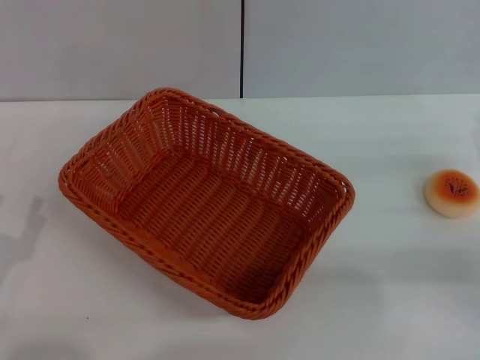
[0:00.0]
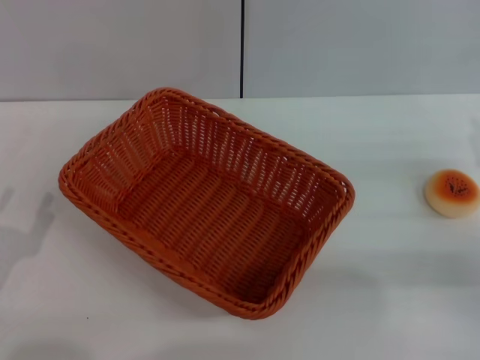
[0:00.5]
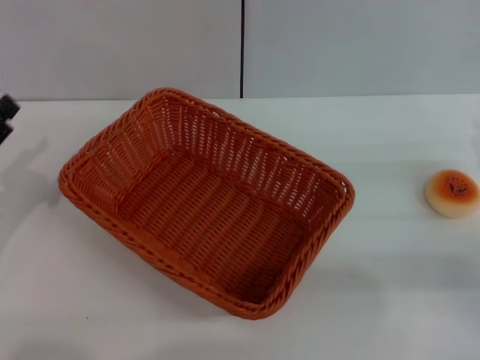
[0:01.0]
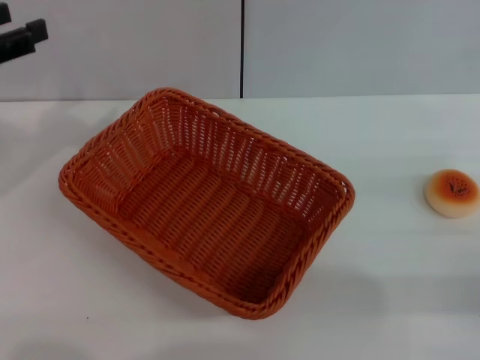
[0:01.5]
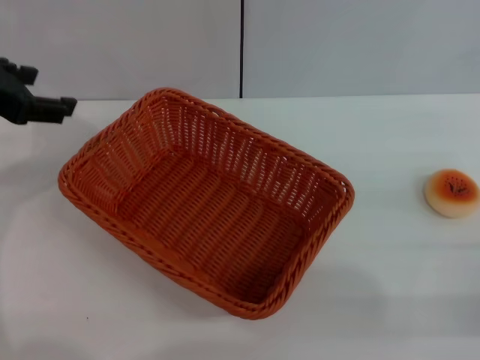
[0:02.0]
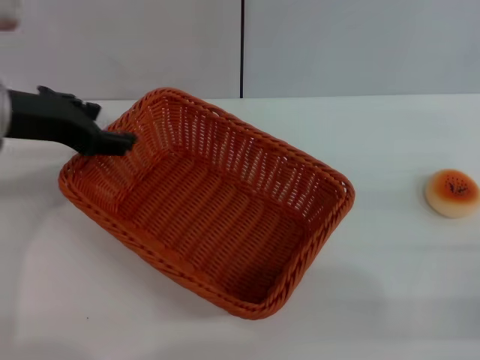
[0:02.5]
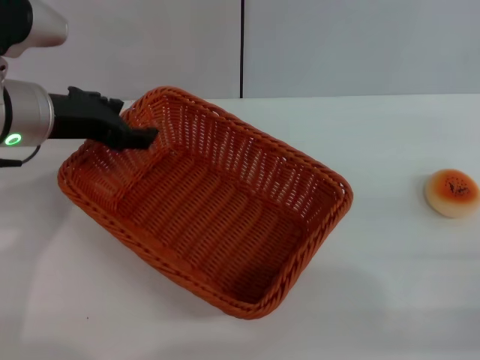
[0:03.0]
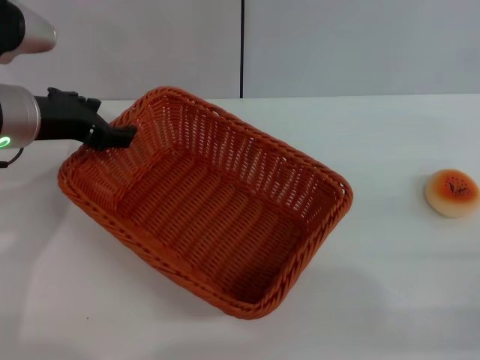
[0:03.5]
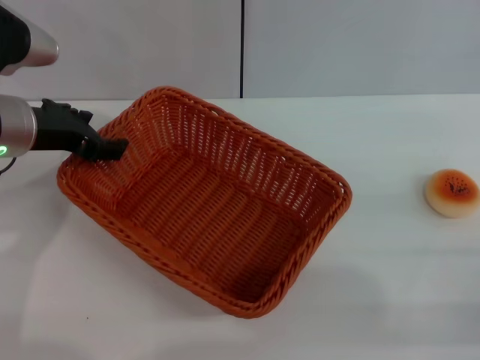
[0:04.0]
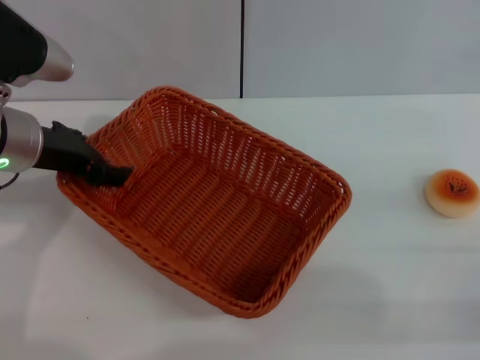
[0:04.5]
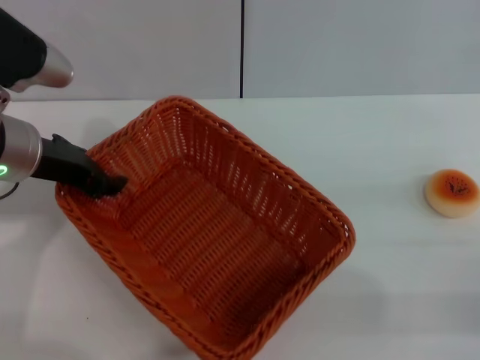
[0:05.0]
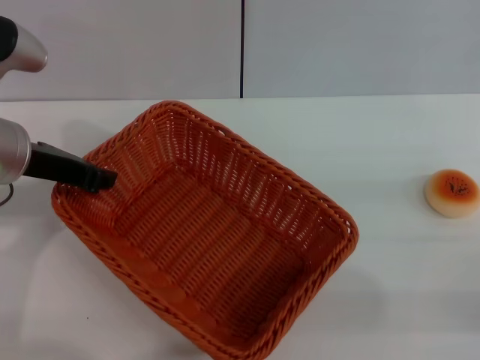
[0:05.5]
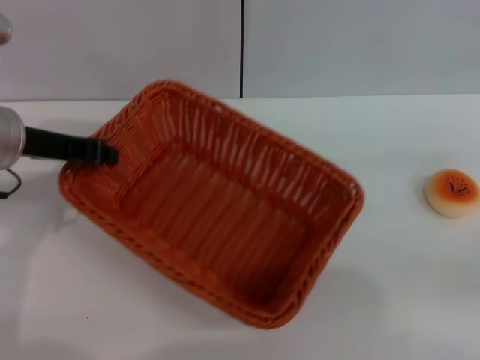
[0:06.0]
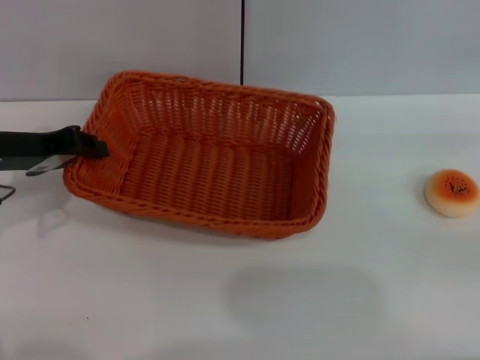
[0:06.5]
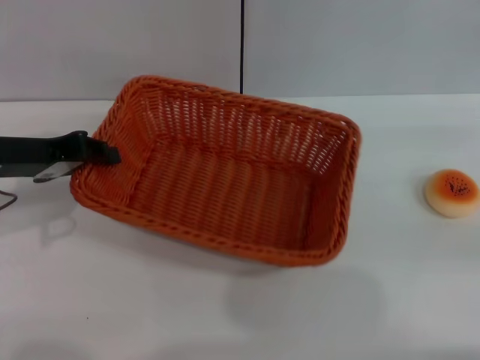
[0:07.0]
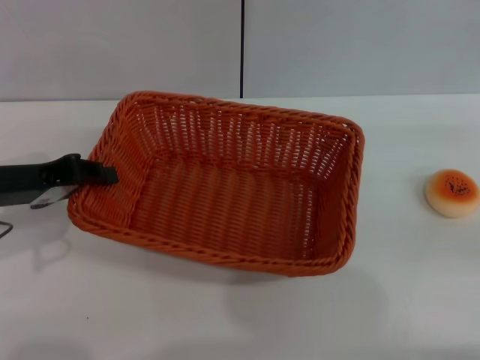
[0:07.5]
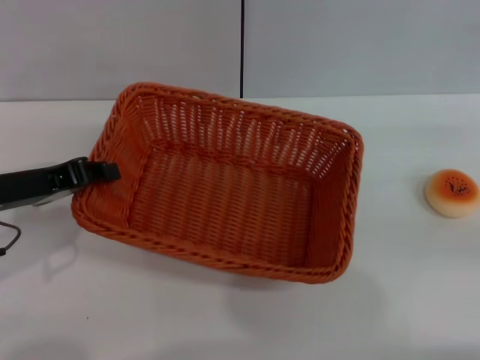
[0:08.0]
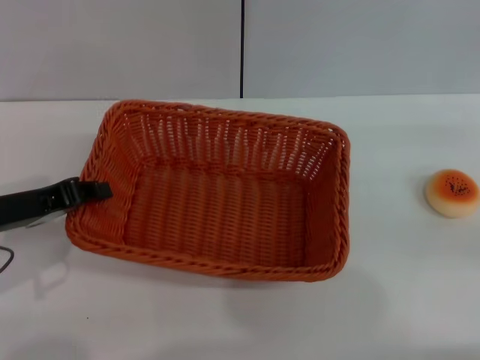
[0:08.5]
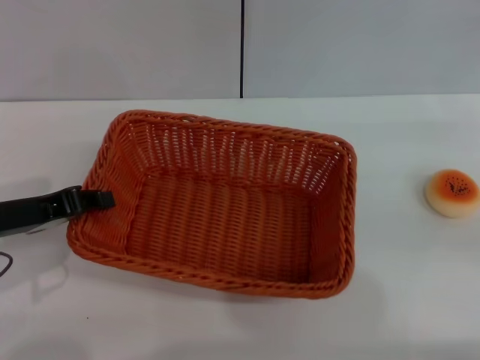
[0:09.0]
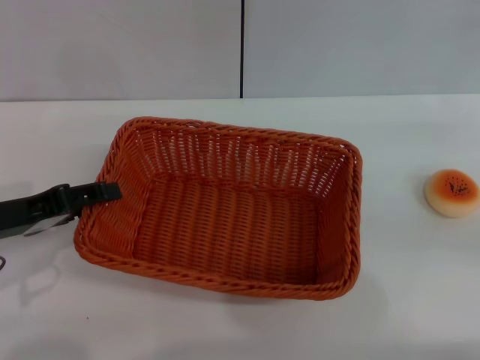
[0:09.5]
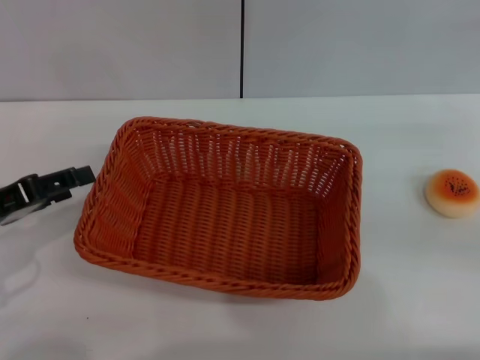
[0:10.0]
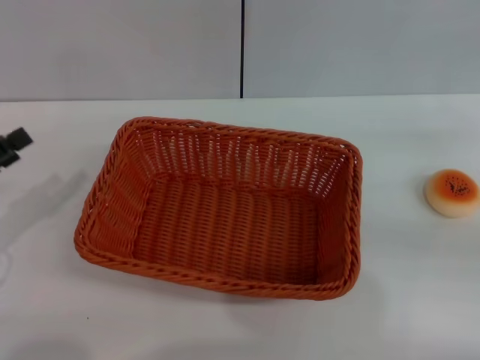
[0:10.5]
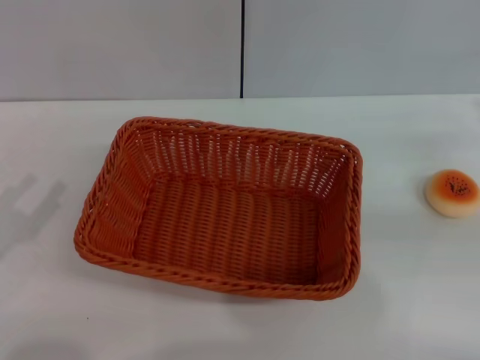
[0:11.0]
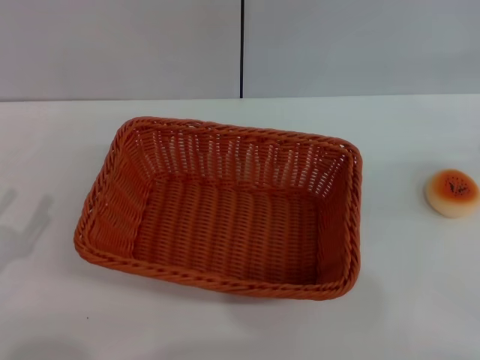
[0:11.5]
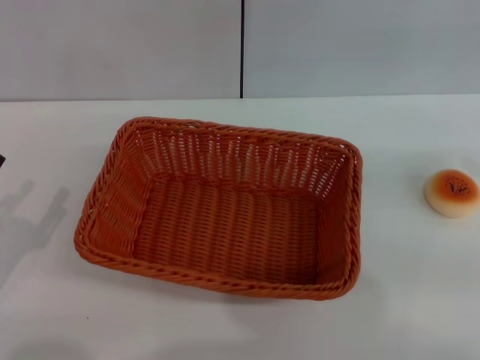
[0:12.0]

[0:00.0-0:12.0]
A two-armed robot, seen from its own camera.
Step, 0:00.0 to 0:10.0: Move the basket to the center of view with the left gripper.
0:00.0 to 0:02.0: The left gripper moves upward and forward, about 25 cm.
0:02.0 to 0:04.0: The left gripper is displaced downward and to the right by approximately 10 cm.
0:04.0 to 0:06.0: The right gripper shifts roughly 5 cm upward and forward, while the left gripper closes up.
0:06.0 to 0:08.0: The left gripper heads backward, covering approximately 5 cm.
0:08.0 to 0:10.0: The left gripper moves about 5 cm, and opens its fingers.
0:10.0 to 0:12.0: The left gripper shifts roughly 10 cm downward and backward.

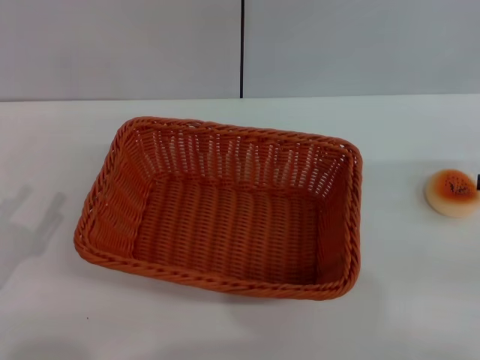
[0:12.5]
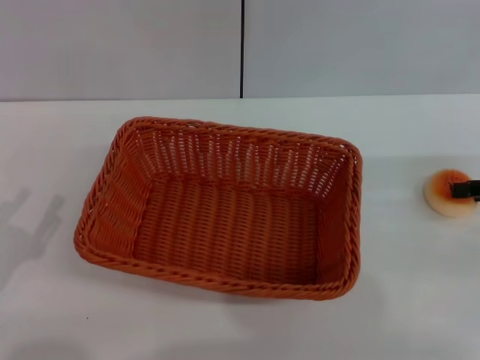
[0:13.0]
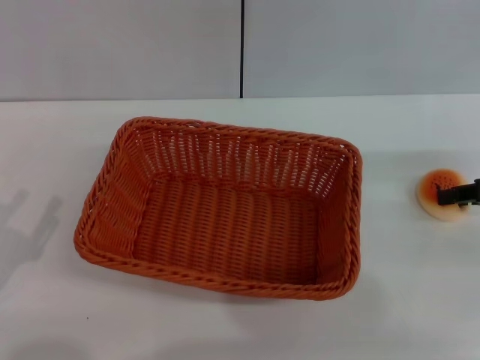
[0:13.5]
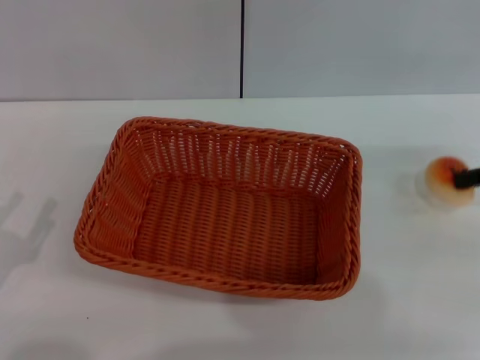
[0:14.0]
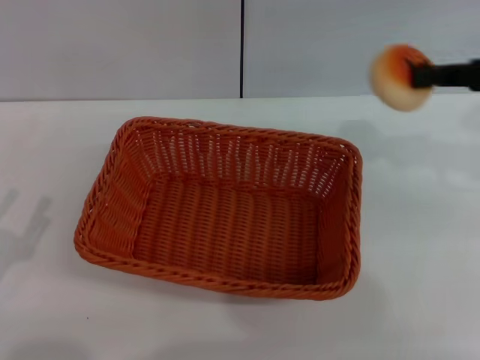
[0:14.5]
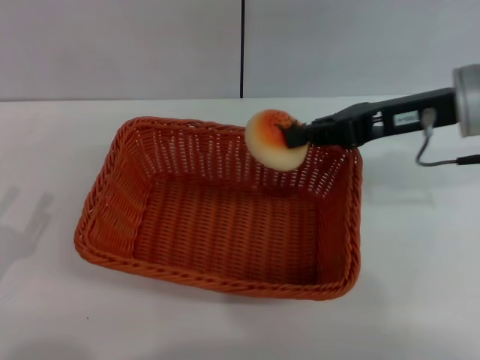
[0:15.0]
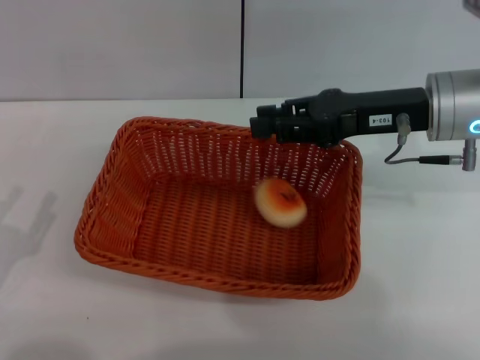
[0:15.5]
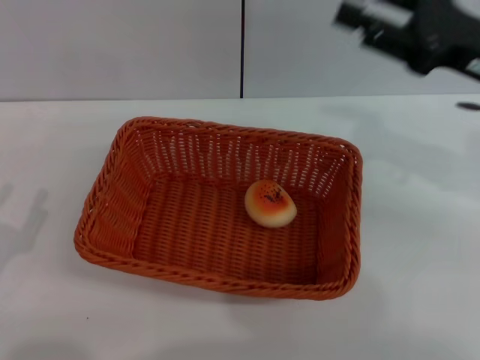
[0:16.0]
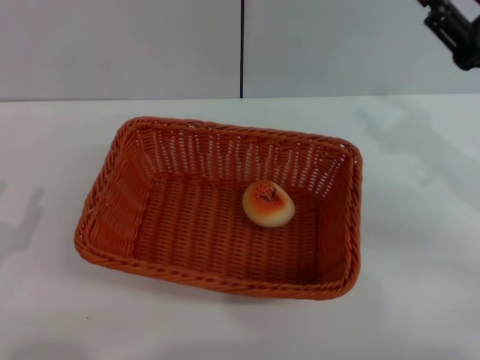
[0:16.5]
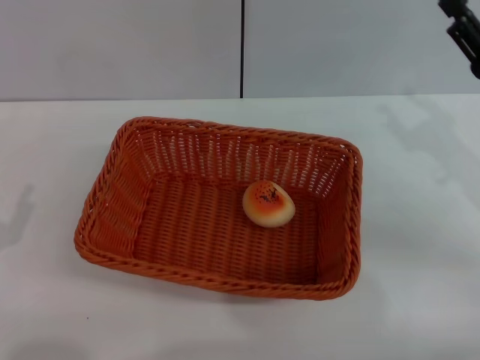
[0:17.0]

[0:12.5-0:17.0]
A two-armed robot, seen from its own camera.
Step, 0:14.5 to 0:15.5: Place the egg yolk pastry into the basket with the right gripper.
0:12.5 to 0:14.5: The right gripper goes approximately 10 cm upward and to the left, and closes its fingers.
0:14.5 to 0:17.0: The right gripper goes roughly 10 cm downward, and opens up.

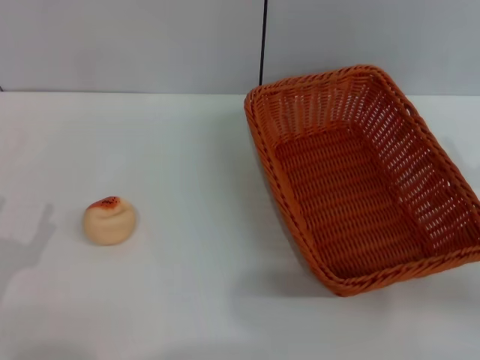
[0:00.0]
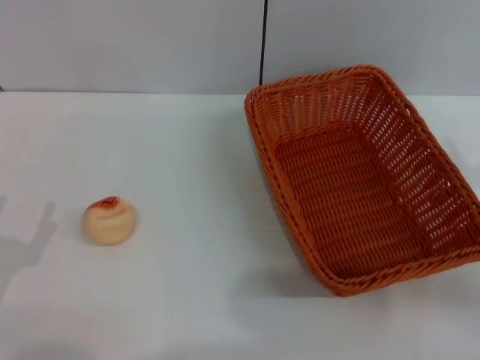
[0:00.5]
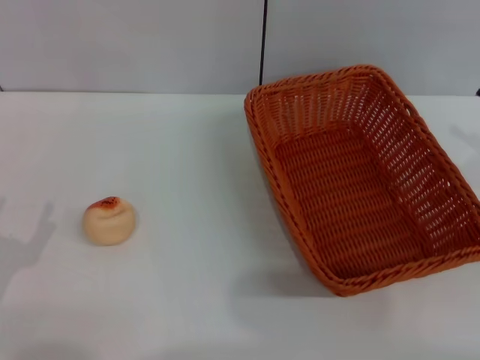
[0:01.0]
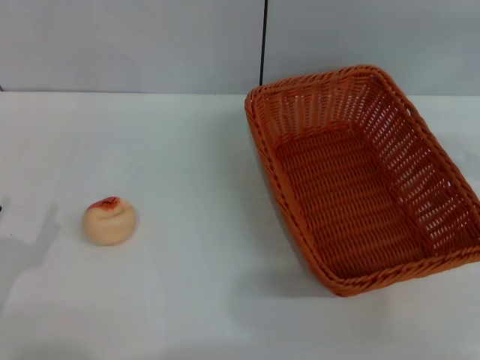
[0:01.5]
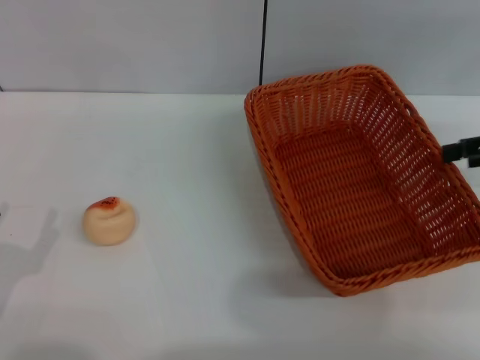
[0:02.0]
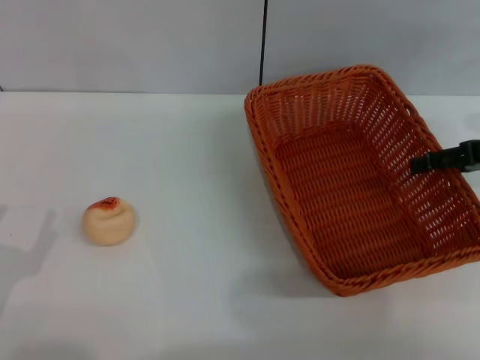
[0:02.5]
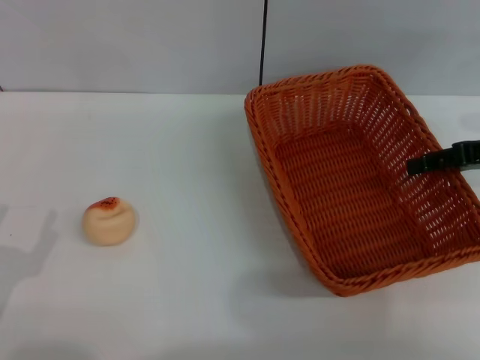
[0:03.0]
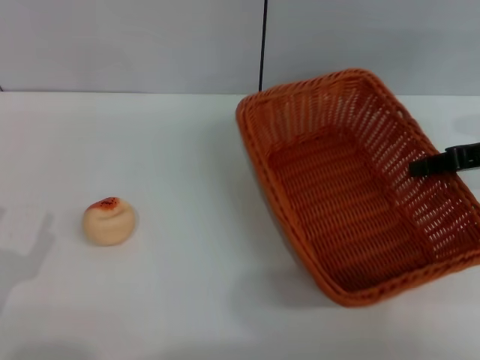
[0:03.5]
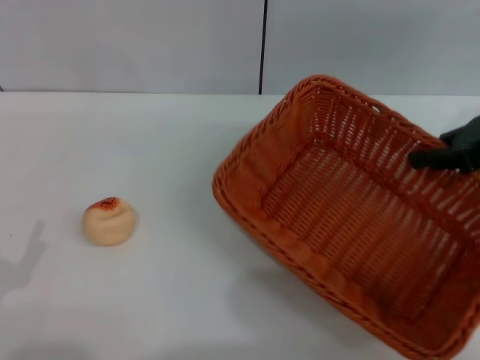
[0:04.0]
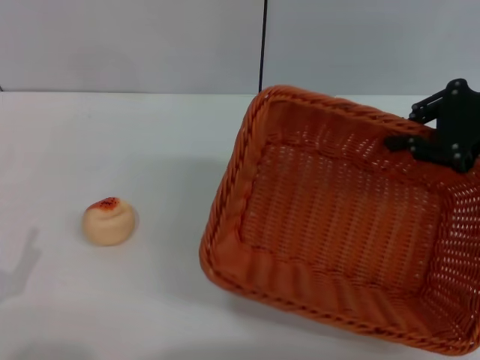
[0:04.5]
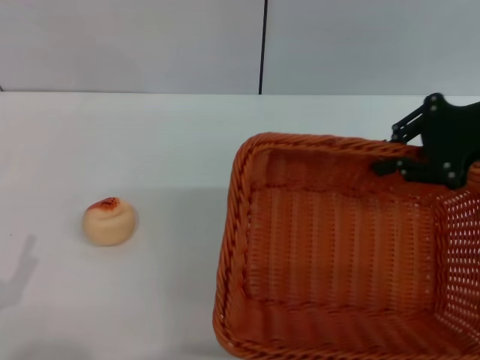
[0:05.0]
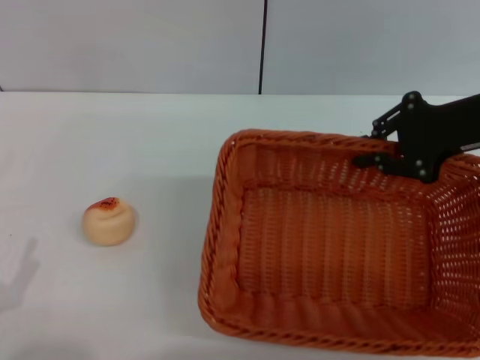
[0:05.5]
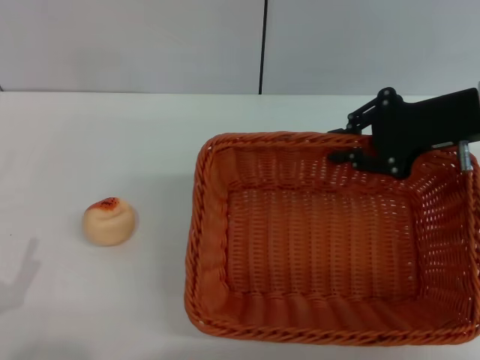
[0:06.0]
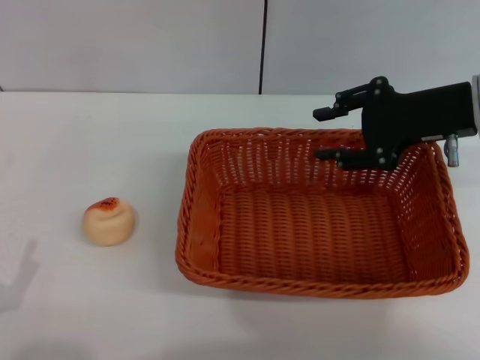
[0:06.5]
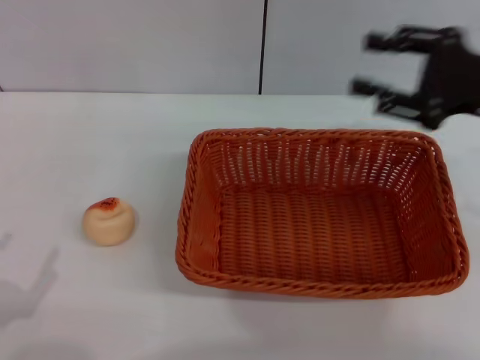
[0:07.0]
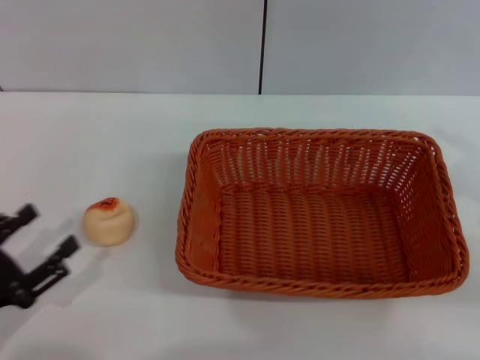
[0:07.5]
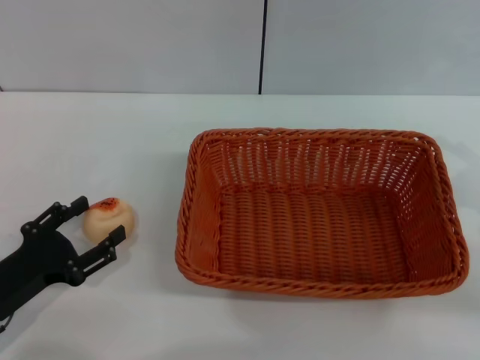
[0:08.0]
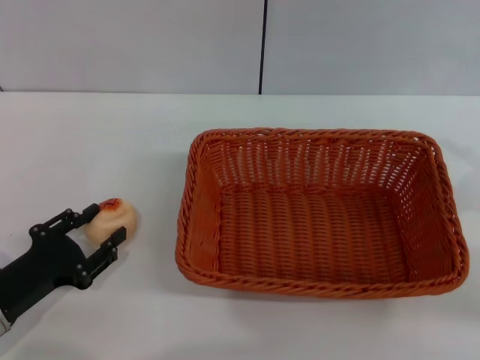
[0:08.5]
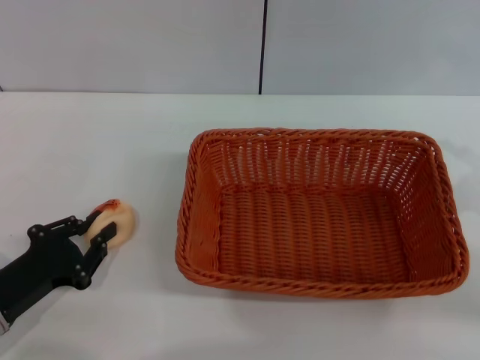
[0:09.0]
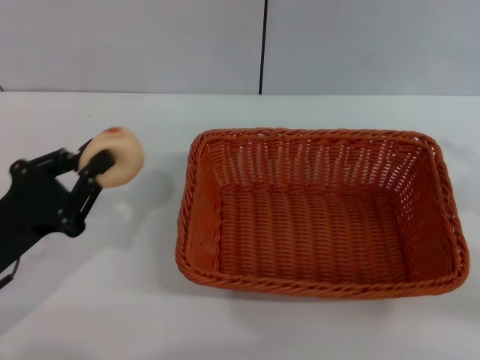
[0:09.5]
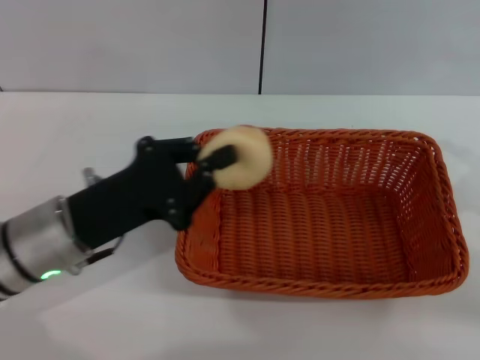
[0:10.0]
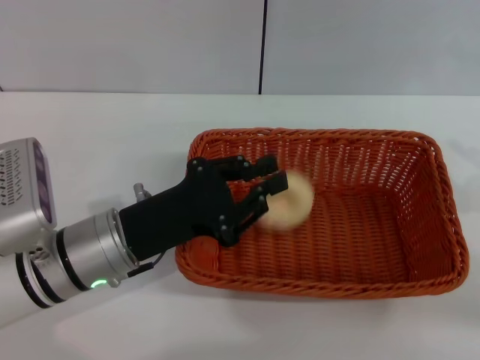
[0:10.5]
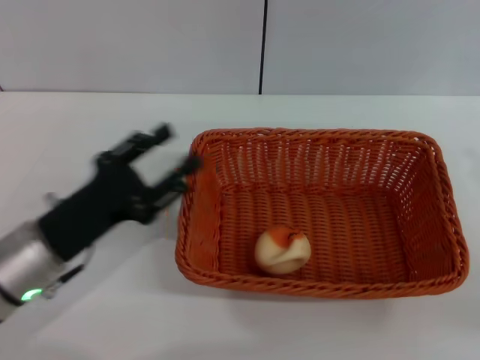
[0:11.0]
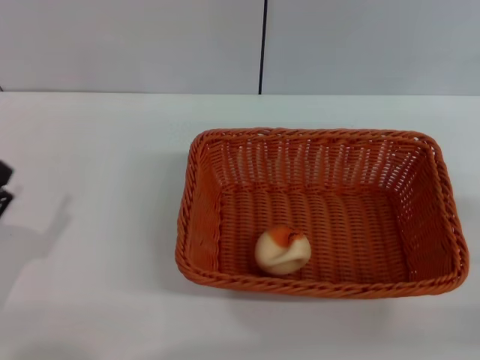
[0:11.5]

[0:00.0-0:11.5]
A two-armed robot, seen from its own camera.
Step, 0:00.0 to 0:06.5: Move the basket to the center of view with the right gripper.
Step, 0:07.0 to 0:09.0: Pick up the egg yolk pastry with the left gripper.
Step, 0:09.5 to 0:10.5: Place the egg yolk pastry into the basket with the left gripper.
0:00.0 to 0:02.0: The right gripper heads forward and upward, covering approximately 15 cm.
0:02.0 to 0:04.0: The right gripper moves approximately 5 cm, and closes its fingers.
0:04.0 to 0:06.0: The right gripper moves to the left, roughly 5 cm.
0:06.0 to 0:07.5: The right gripper goes about 15 cm backward and to the right, and opens. The left gripper moves forward, about 5 cm.
0:07.5 to 0:09.5: The left gripper moves forward, some 5 cm, and closes.
0:09.5 to 0:11.5: The right gripper moves about 5 cm; the left gripper is displaced backward by roughly 5 cm, reaches about 10 cm to the right, then returns, and opens.
